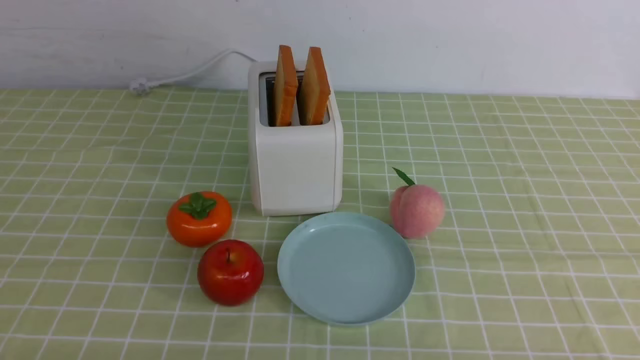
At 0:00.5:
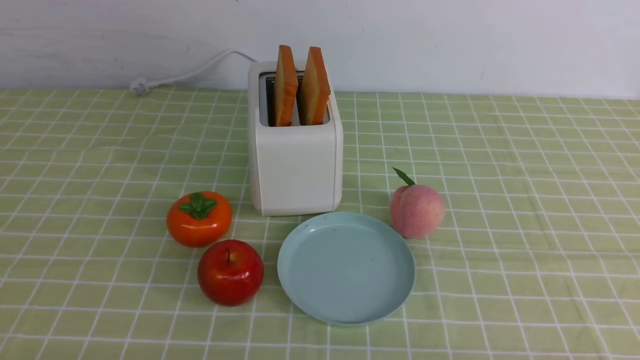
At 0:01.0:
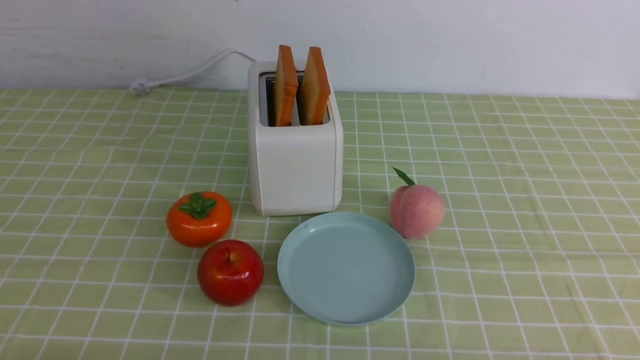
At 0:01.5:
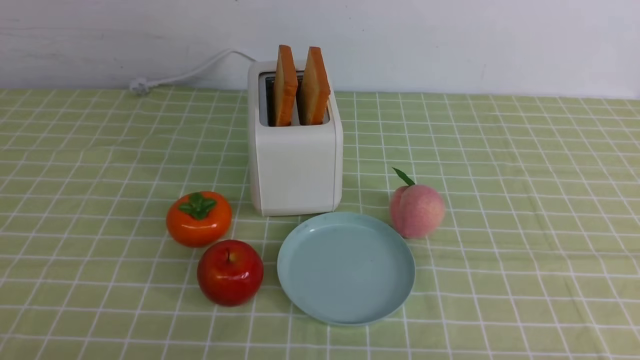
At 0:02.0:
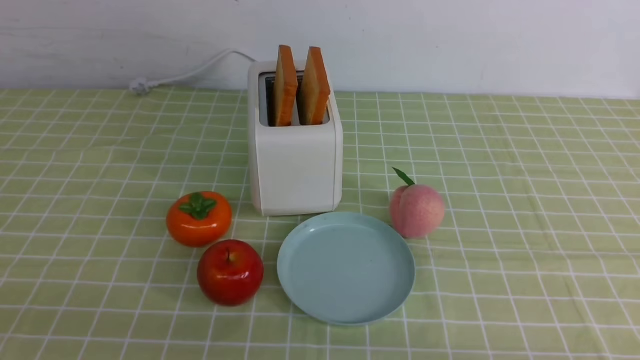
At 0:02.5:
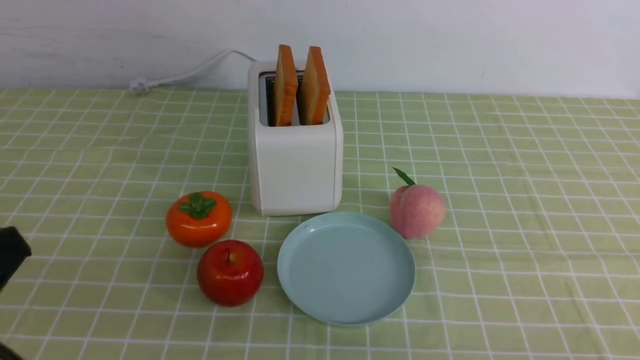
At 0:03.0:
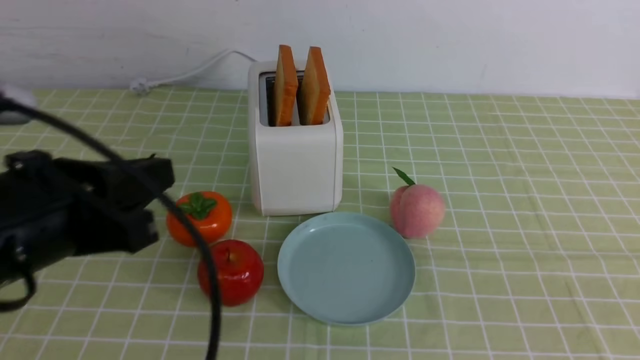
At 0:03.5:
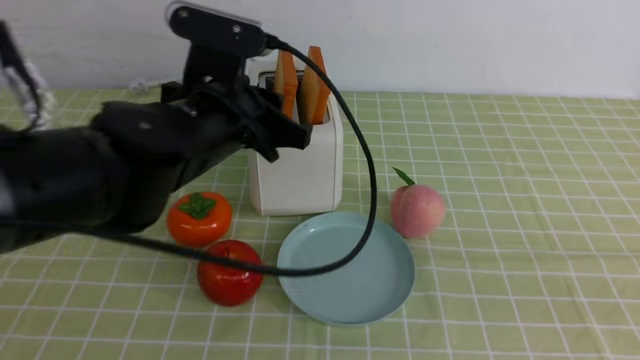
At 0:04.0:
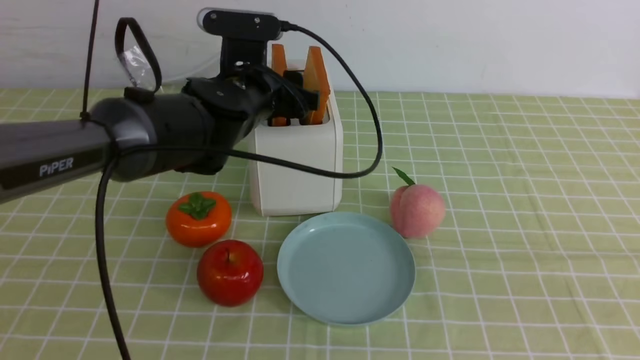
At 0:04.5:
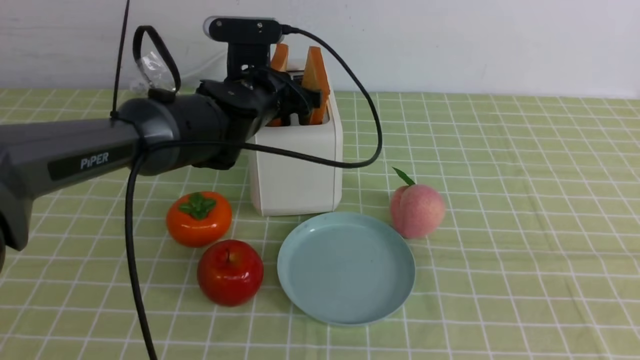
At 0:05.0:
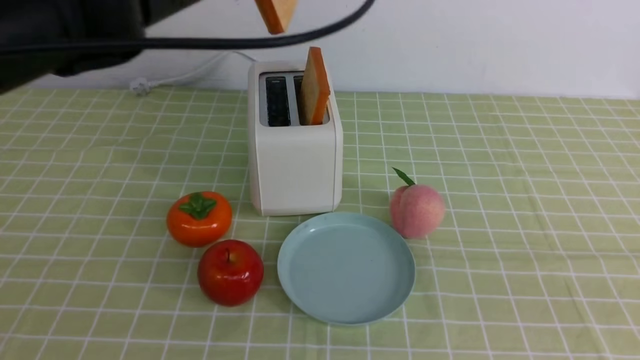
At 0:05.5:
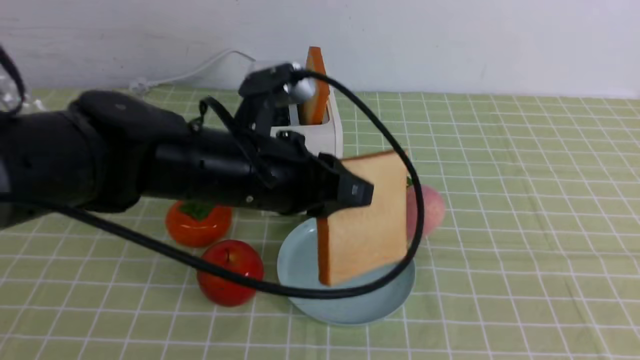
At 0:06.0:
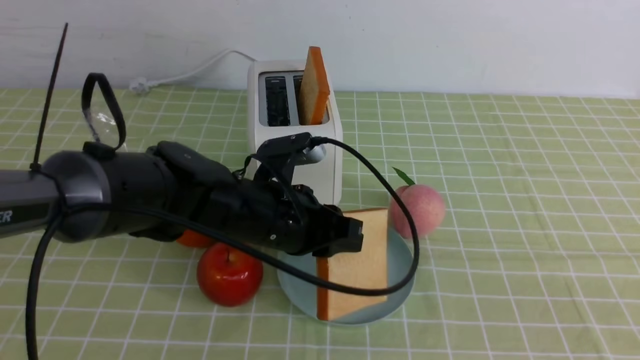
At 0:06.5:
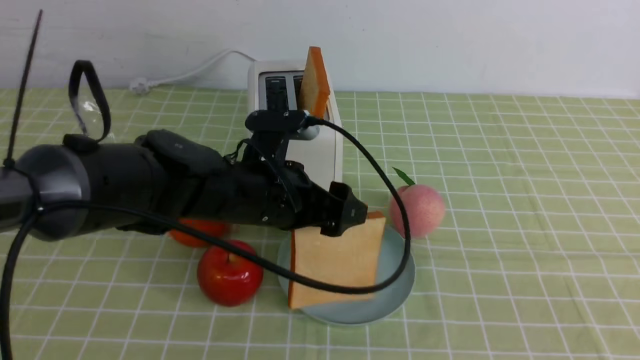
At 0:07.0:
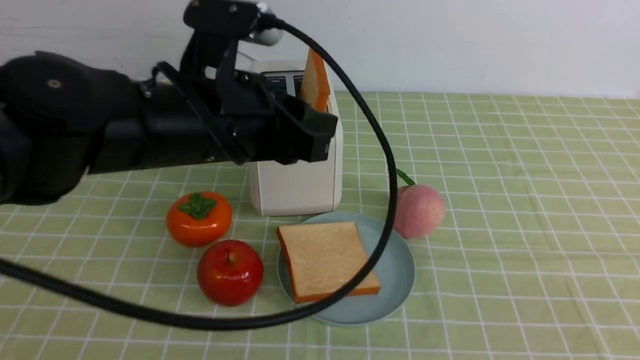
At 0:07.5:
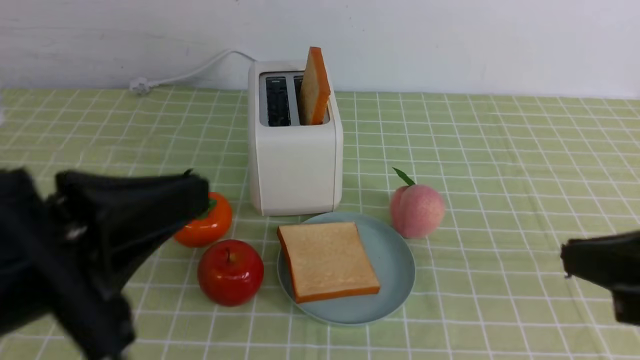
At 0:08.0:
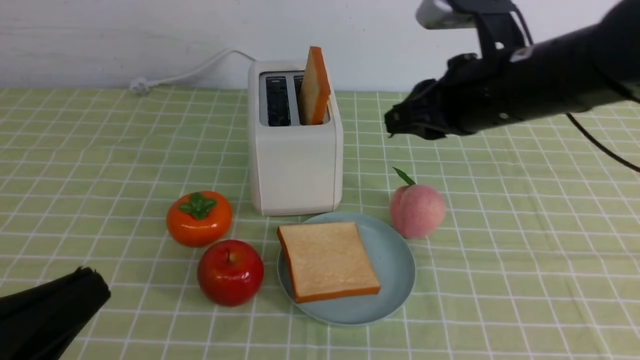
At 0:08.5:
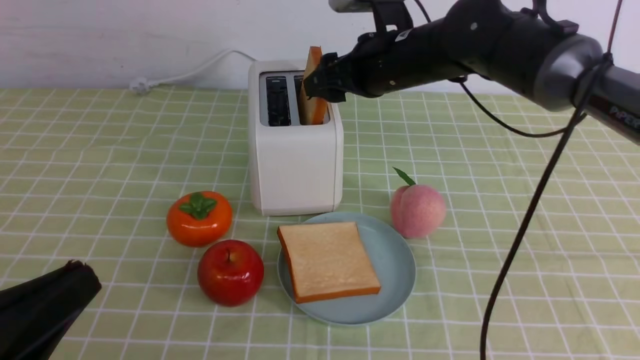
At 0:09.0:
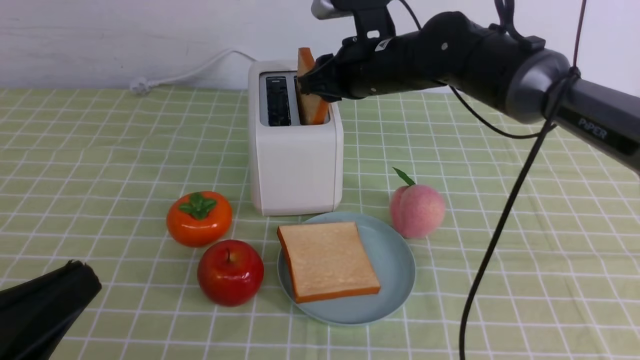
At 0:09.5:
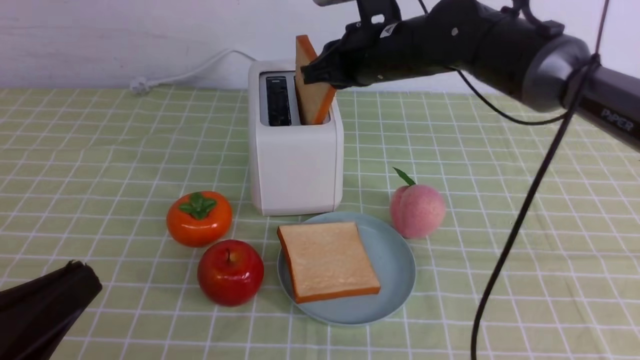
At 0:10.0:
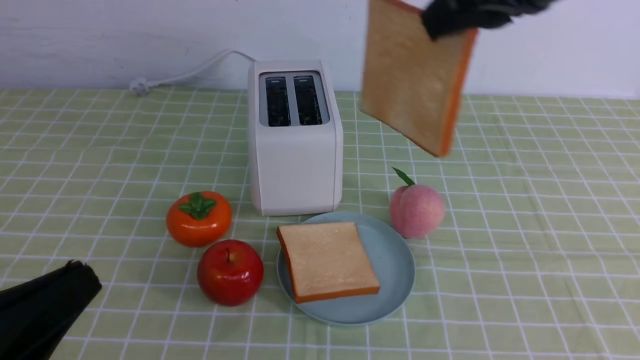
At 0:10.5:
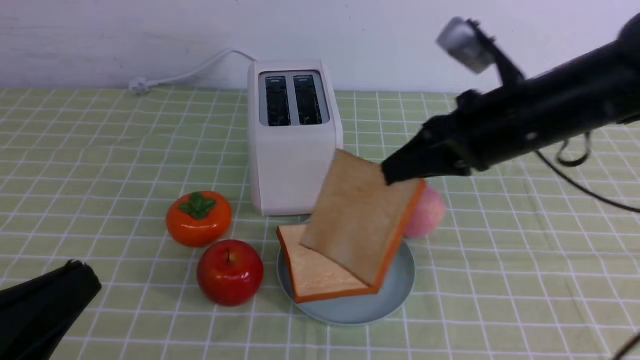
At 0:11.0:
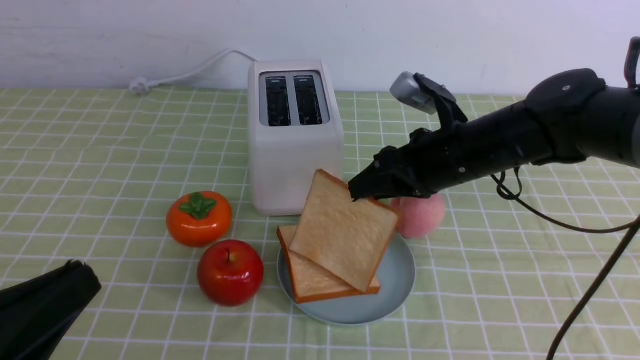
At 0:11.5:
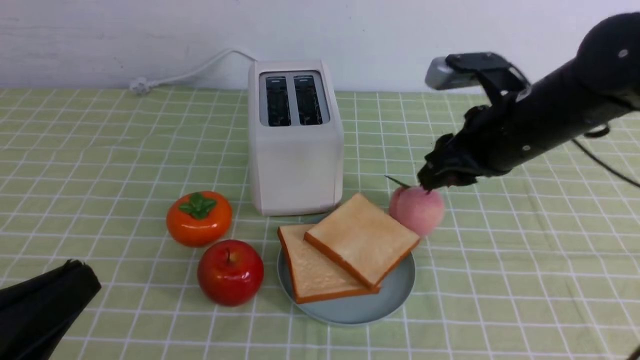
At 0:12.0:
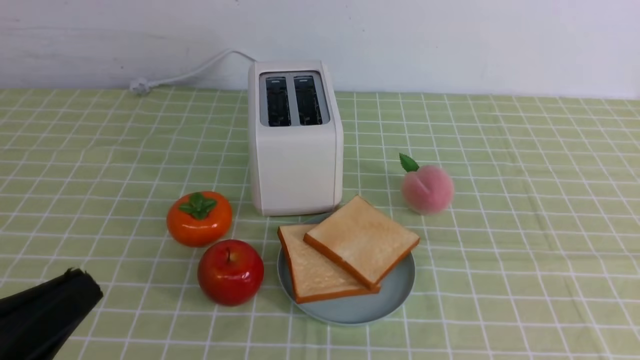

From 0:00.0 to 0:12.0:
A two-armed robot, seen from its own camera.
Task of the whole recording: take toasted bread from bread machine on green coffee tablecloth place on plate.
Step, from 0:00.0 to 0:04.5: use the left arm to take out a slice of bread.
Step, from 0:05.0 to 0:06.5: use the left arm to put a slice of bread into the empty plate.
Step, from 0:07.0 to 0:09.5: use the right arm to take out a slice of bread.
Step, from 0:10.0 to 0:11.0: use the right arm to put a slice of bread into the plate.
From 0:02.0 to 0:04.0: The left gripper moves forward and to the right, roughly 40 cm, and opens up; the right gripper moves upward, roughly 15 cm, and closes.
From 0:04.0 to 0:06.0: The left gripper heads backward, covering approximately 10 cm, reaches about 10 cm upward, then returns, and closes its fingers.
From 0:06.0 to 0:08.0: The right gripper travels forward and to the left by some 25 cm, while the left gripper goes approximately 30 cm backward and to the left, and opens and closes again.
From 0:08.0 to 0:10.0: The right gripper travels upward by approximately 10 cm, reaches approximately 15 cm forward, then returns, and opens, then closes again.
From 0:10.0 to 0:12.0: The right gripper moves backward and to the right, roughly 15 cm, travels downward and back again, about 20 cm each way, and opens and closes again.

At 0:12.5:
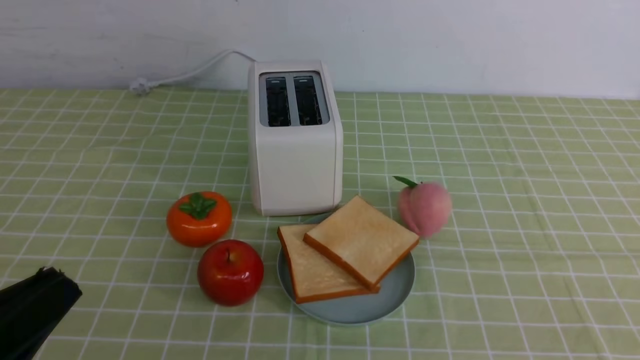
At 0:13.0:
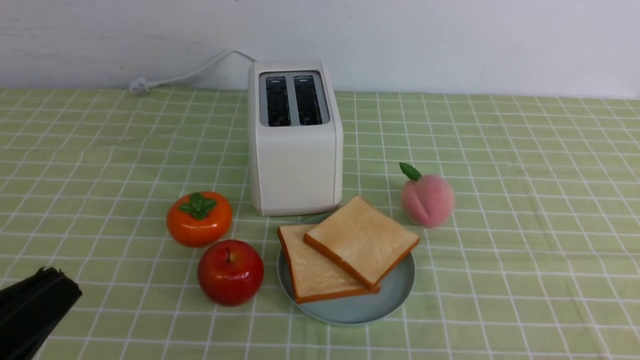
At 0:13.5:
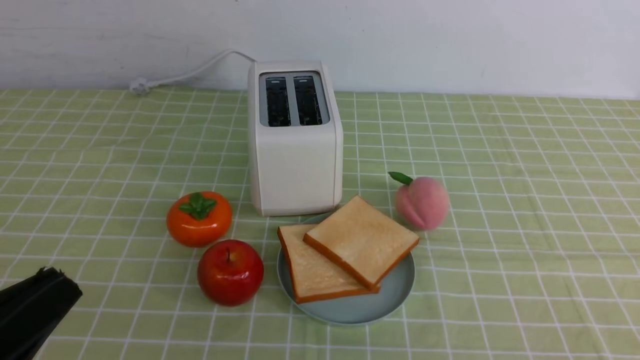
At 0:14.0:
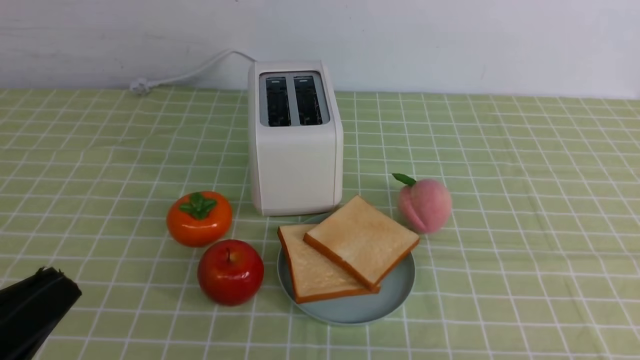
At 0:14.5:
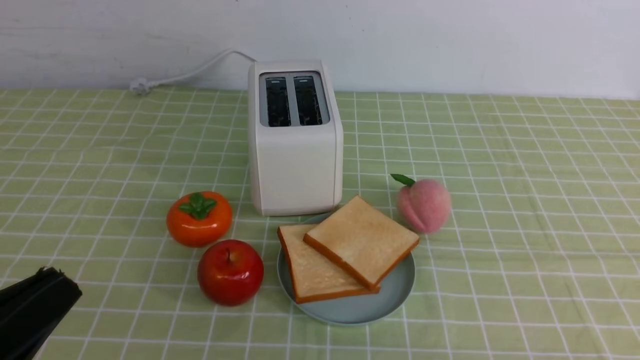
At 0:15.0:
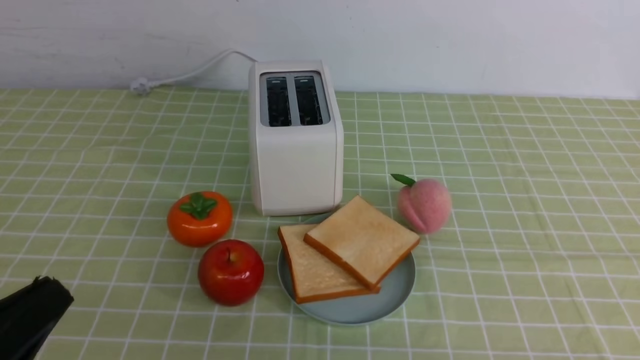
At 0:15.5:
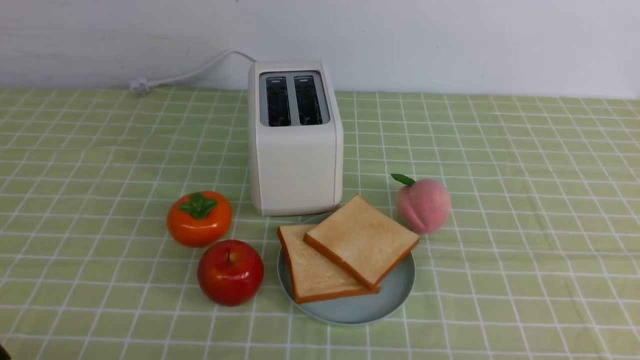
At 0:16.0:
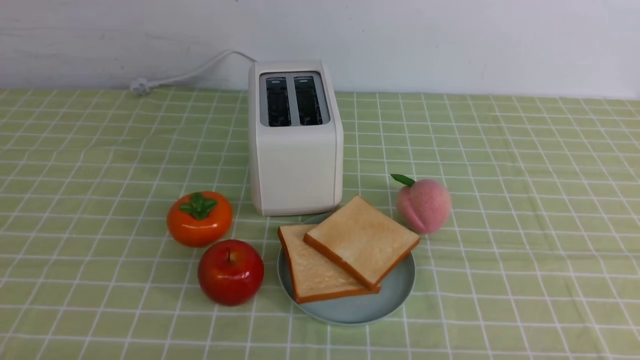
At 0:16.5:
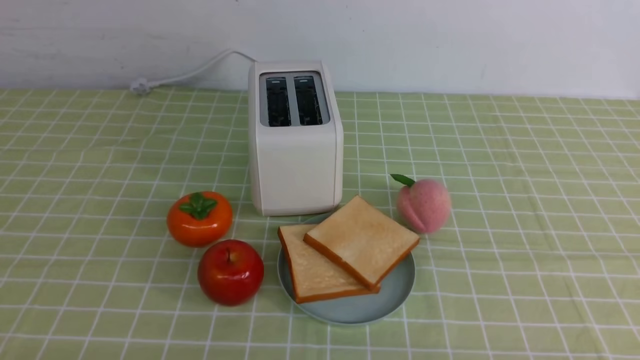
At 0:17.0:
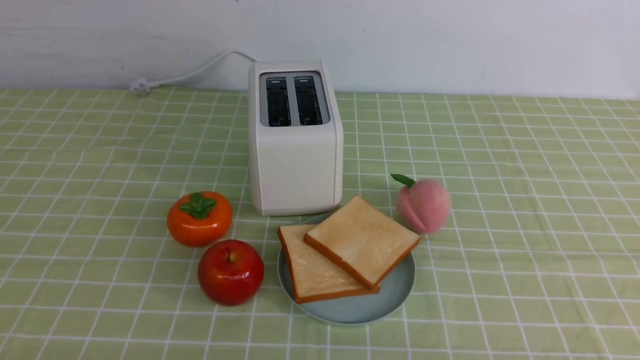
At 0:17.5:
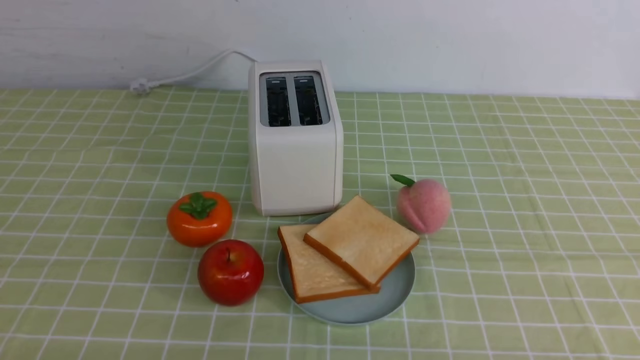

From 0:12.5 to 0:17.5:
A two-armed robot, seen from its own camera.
Task of the whole recording: take toasted bread from bread machine on green coffee tablecloth place on plate.
From 0:15.0 to 0:17.5: The left gripper heads downward, covering approximately 10 cm.
